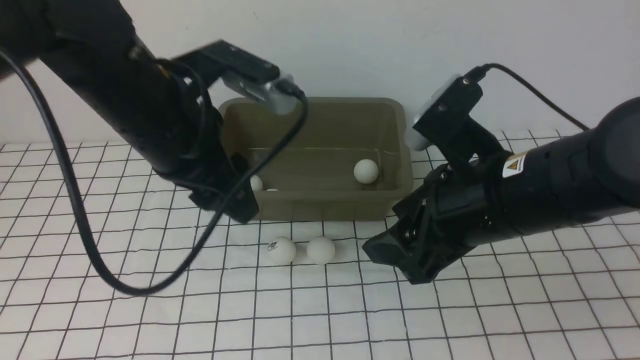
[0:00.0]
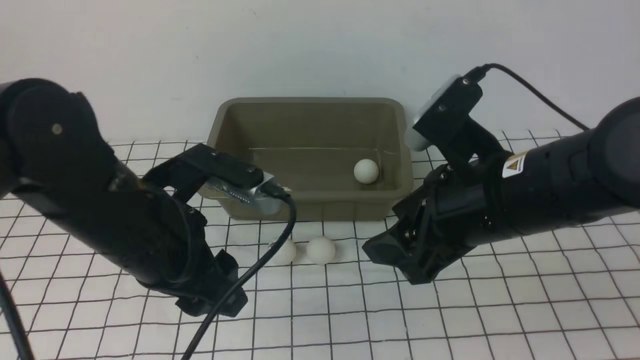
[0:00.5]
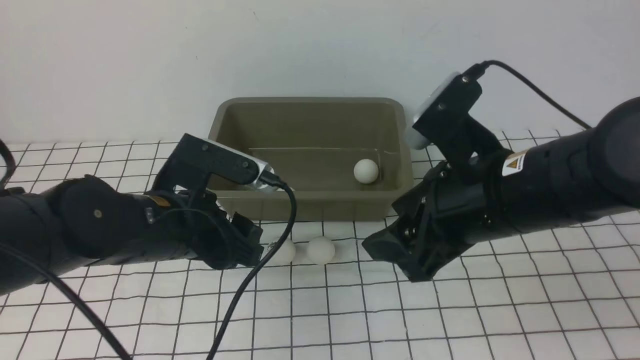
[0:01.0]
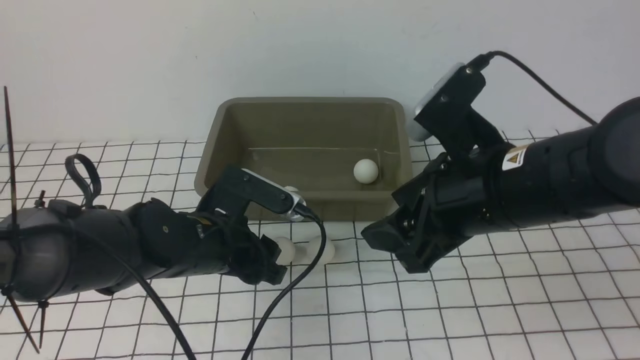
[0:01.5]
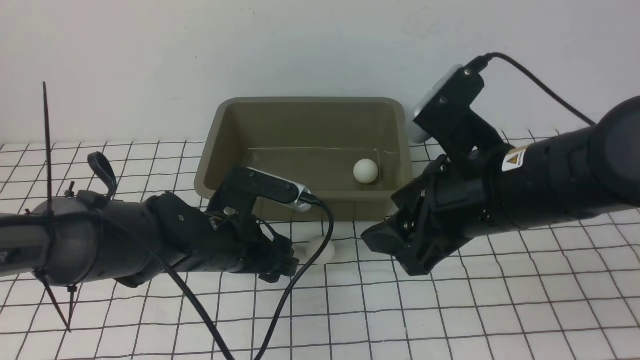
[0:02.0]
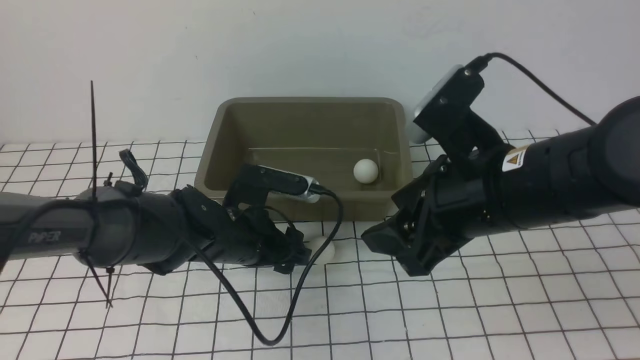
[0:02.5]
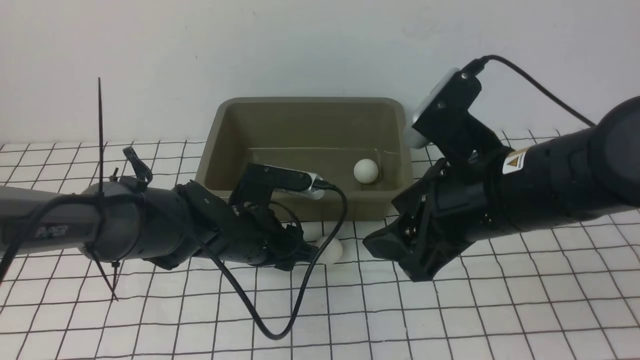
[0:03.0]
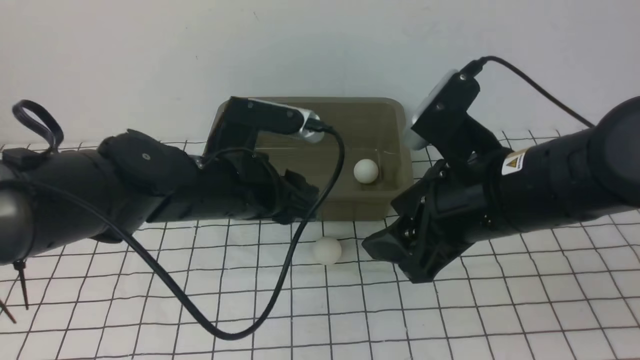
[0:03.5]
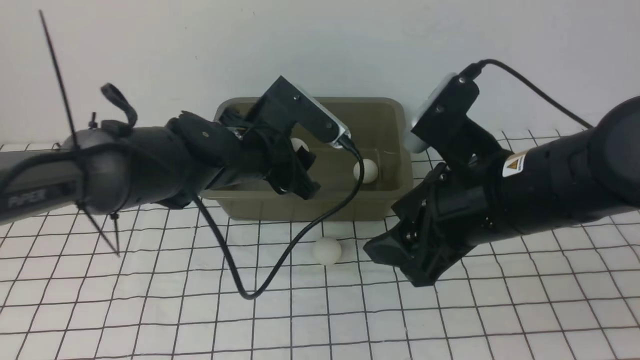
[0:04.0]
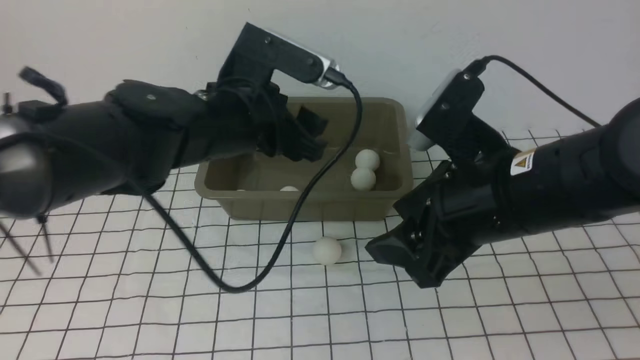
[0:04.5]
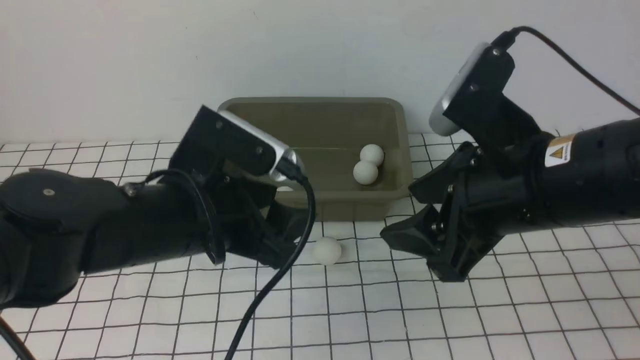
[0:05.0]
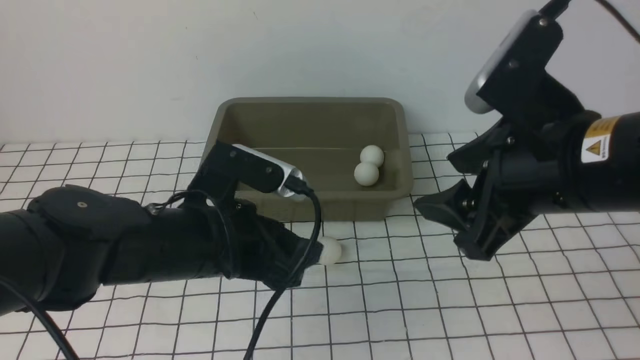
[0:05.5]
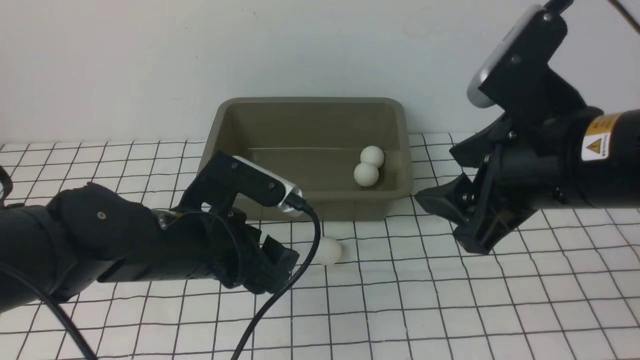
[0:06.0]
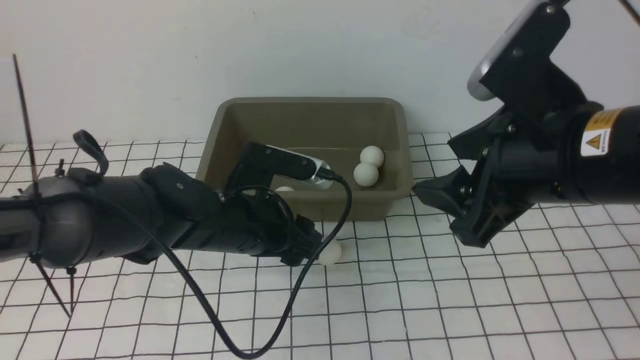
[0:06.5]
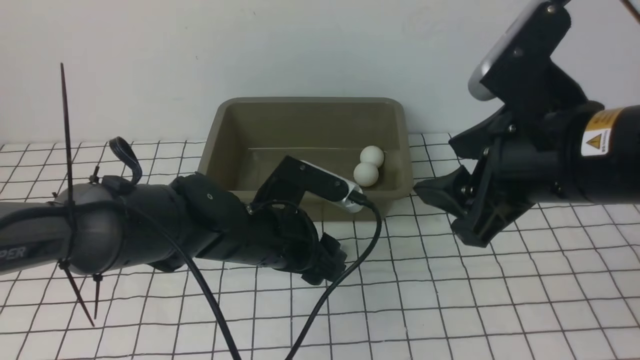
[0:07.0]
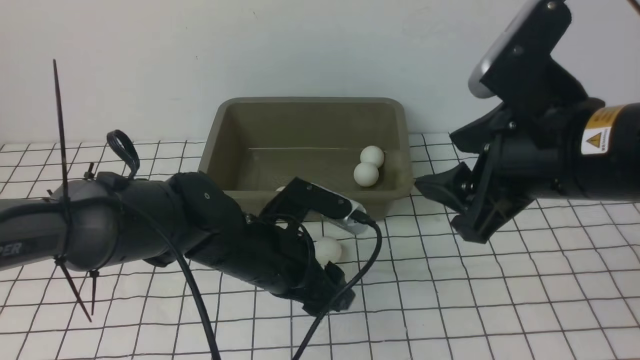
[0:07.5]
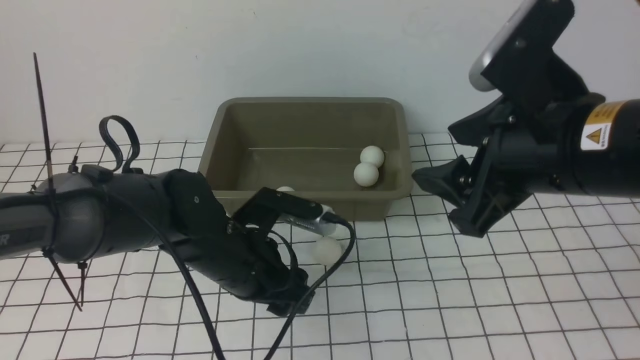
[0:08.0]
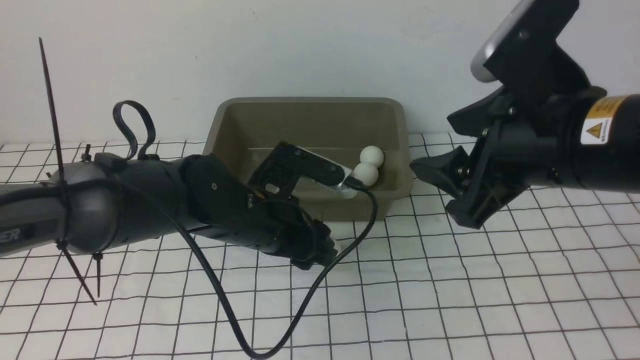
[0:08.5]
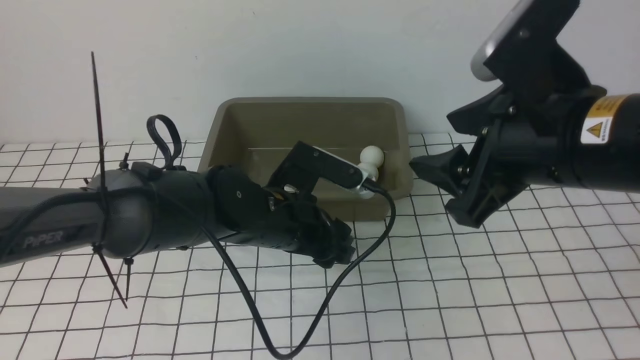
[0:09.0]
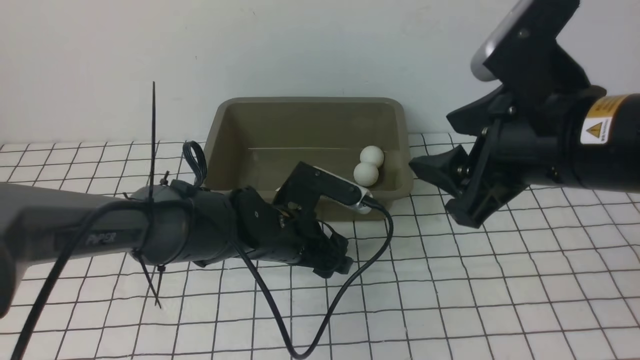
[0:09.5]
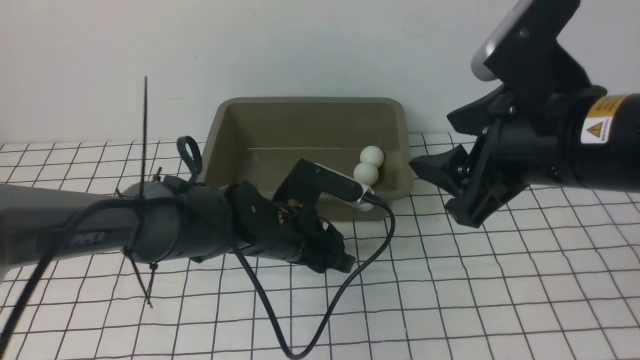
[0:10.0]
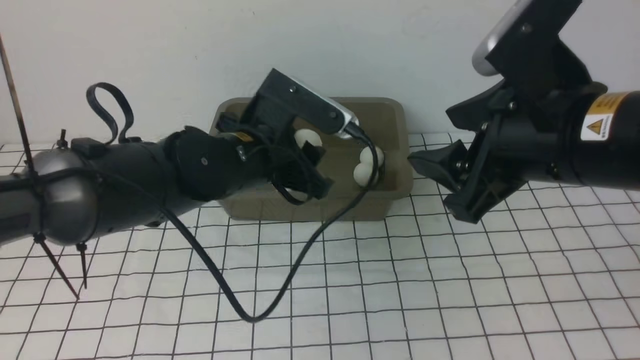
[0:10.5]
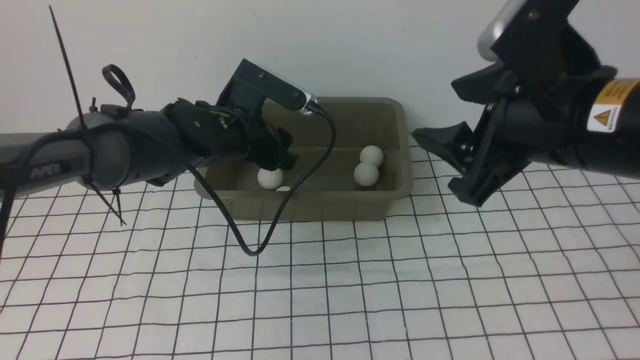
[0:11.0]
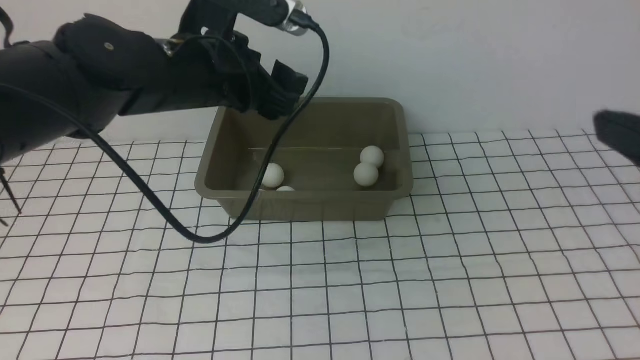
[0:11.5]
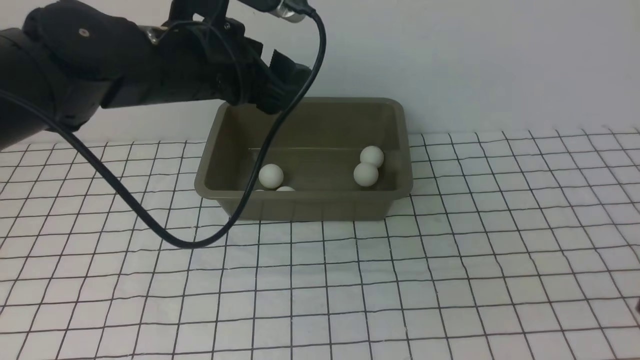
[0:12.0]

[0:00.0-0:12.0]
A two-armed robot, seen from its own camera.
Step, 0:00.0 to 0:03.0: use the left arm to clamp the table tennis ball closest to it.
Step, 0:03.5 to 0:04.0: use the left arm to put the table tennis ball into the box.
Step, 0:04.5 to 0:10.0: use the left arm to clamp the table tennis ball closest to it.
Step, 0:10.5 to 0:11.0: use the left arm to put the table tennis ball into the box.
0:00.0 to 0:02.0: The left gripper is displaced downward and forward by roughly 15 cm.
0:02.0 to 0:04.0: The left gripper moves upward, some 15 cm, and closes and opens again.
0:04.0 to 0:06.0: The left gripper is displaced downward by about 10 cm.
0:08.0 to 0:10.0: The left gripper closes up.
0:10.0 to 0:12.0: The right gripper moves backward and to the right, some 20 cm. Meanwhile the left gripper moves upward, about 20 cm, and opens its fingers.

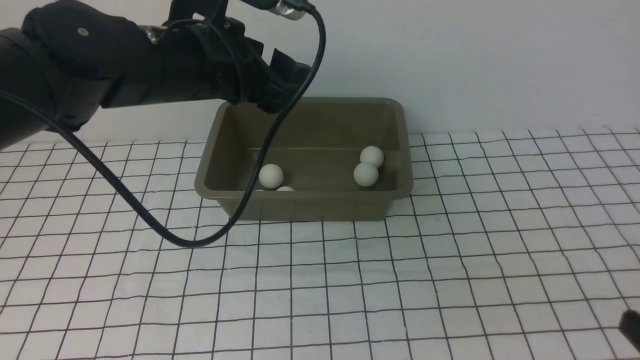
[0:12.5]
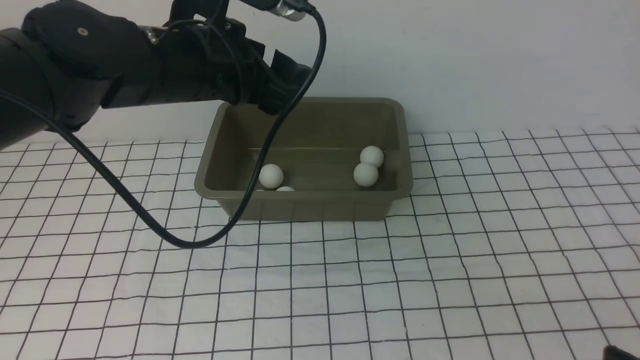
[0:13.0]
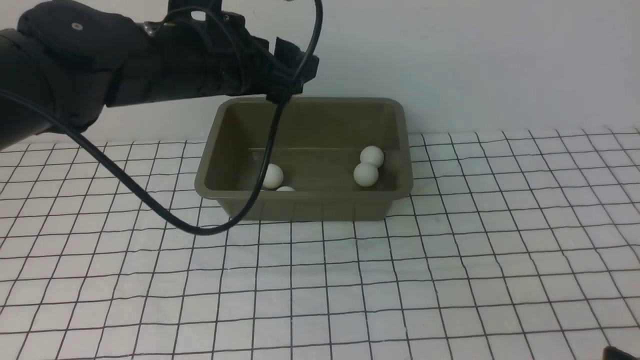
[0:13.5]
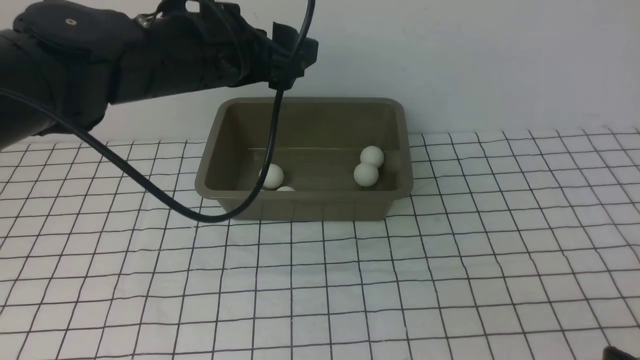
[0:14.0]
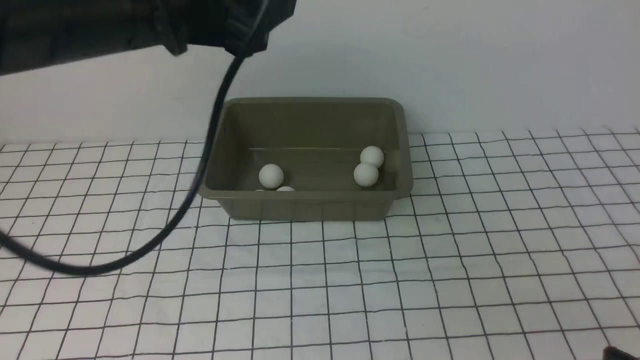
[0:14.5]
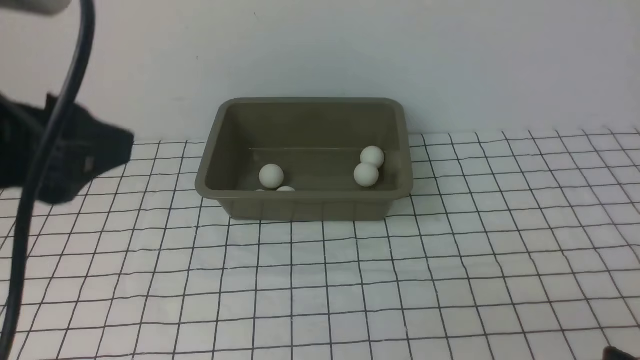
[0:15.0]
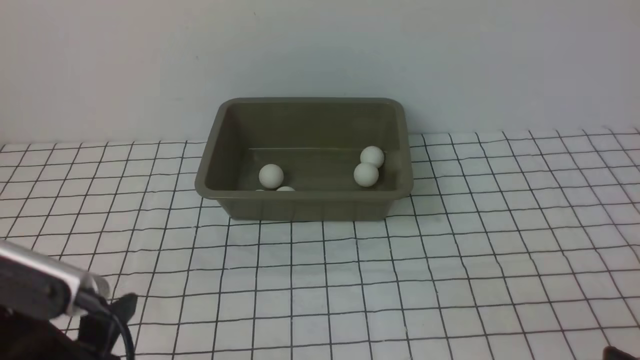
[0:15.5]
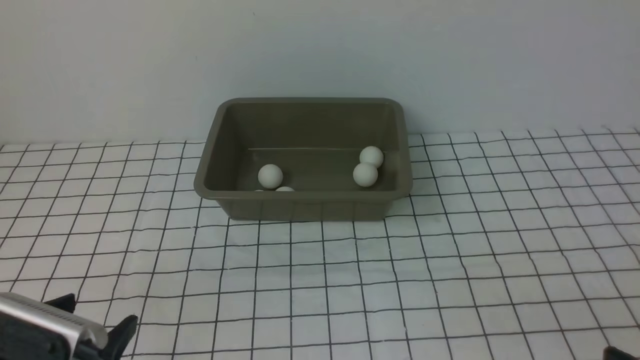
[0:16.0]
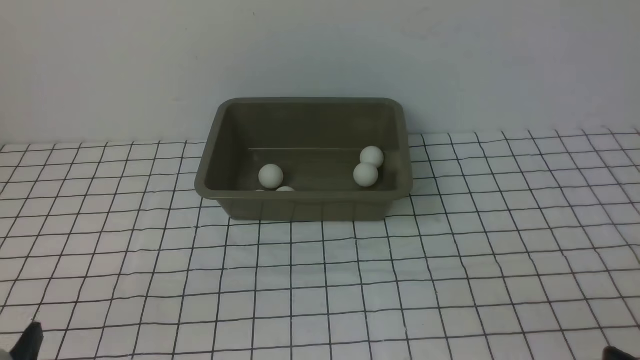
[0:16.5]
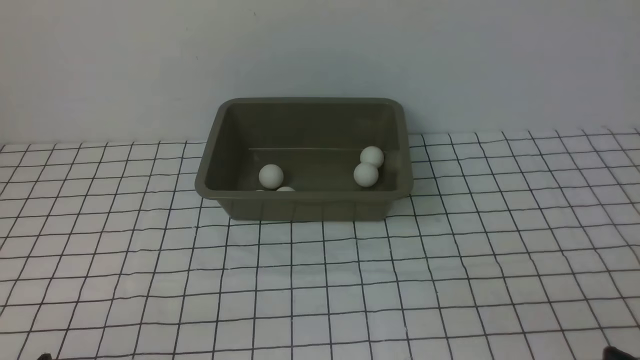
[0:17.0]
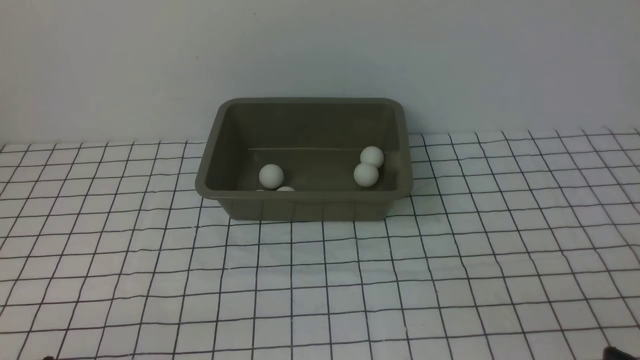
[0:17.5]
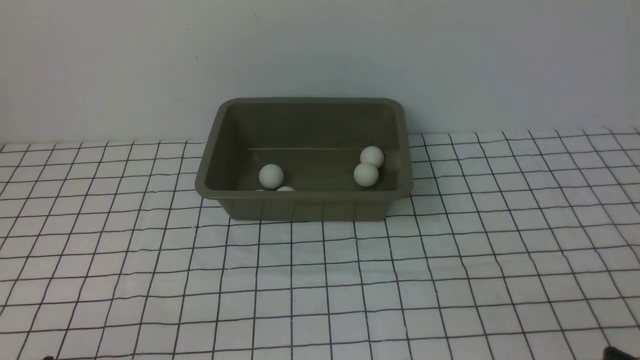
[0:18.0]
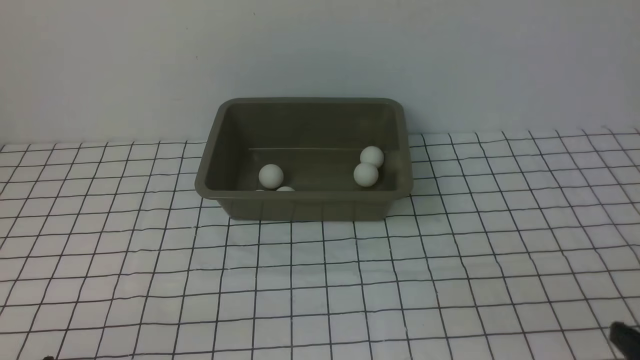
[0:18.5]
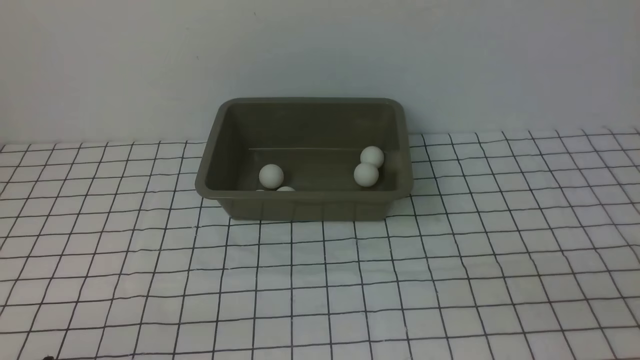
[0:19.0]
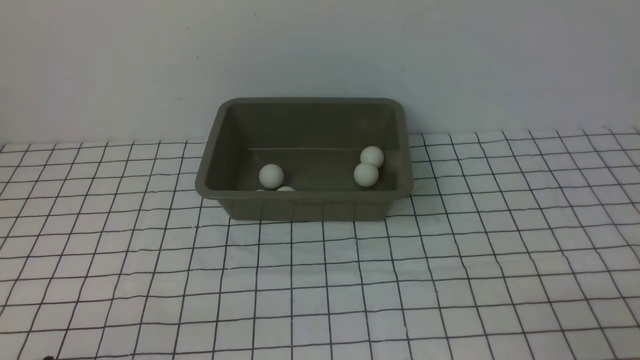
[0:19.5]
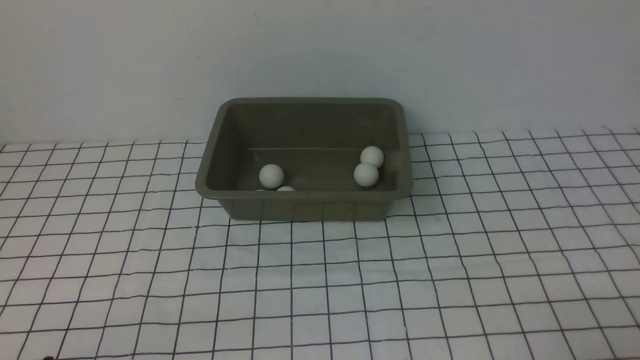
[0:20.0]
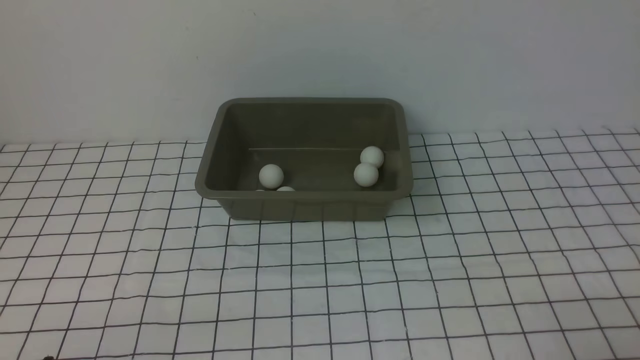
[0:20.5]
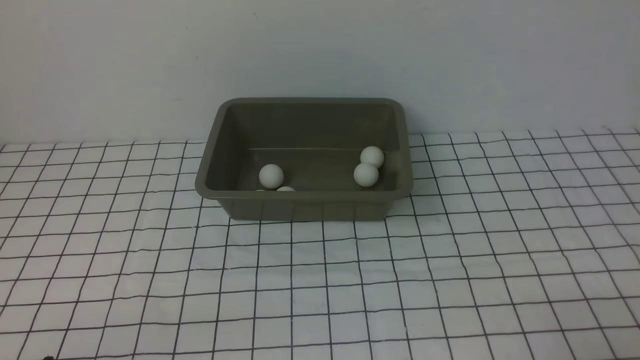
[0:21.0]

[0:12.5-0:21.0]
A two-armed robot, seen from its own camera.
0:12.5 to 0:14.5: The left gripper goes some 15 cm backward and upward.
0:14.5 to 0:16.5: The left gripper shifts some 35 cm downward, backward and to the left.
0:19.0 to 0:21.0: Neither gripper changes place.
